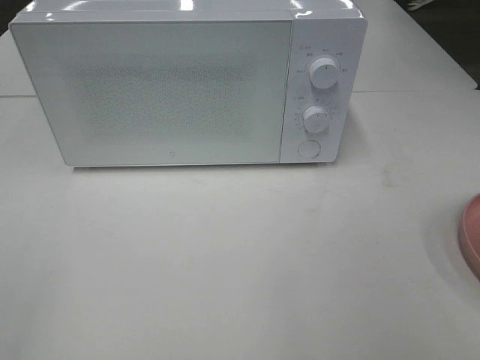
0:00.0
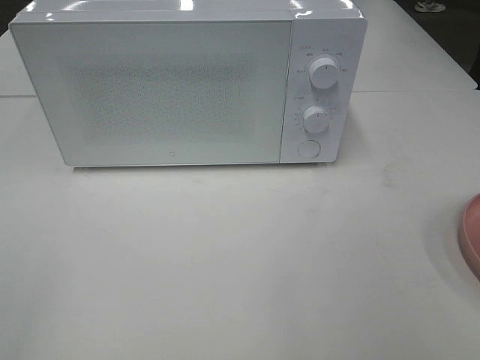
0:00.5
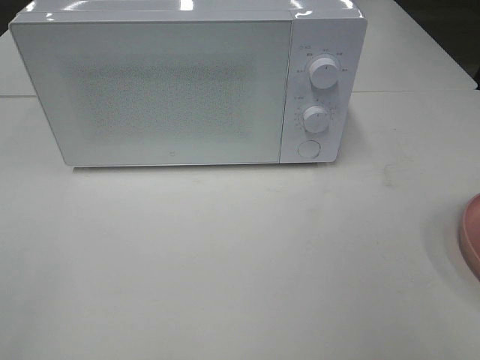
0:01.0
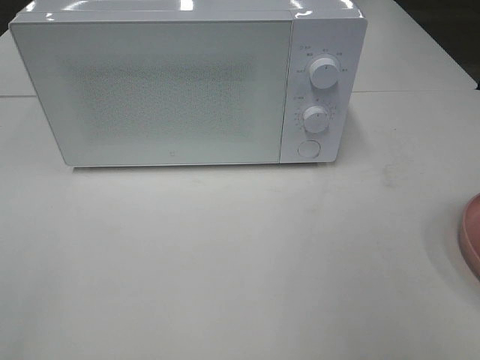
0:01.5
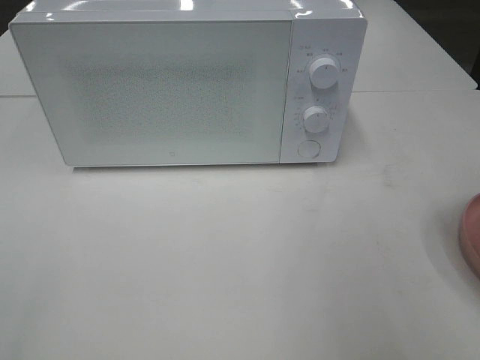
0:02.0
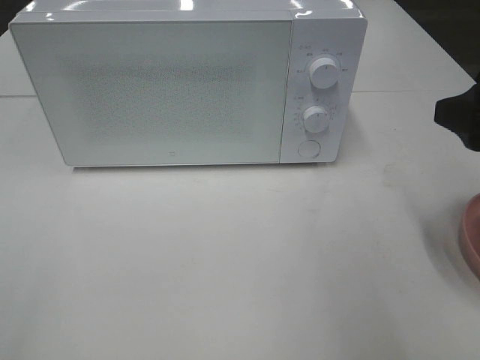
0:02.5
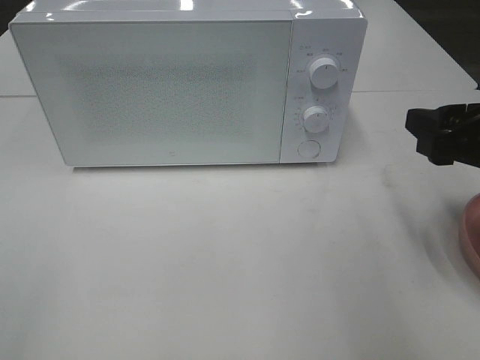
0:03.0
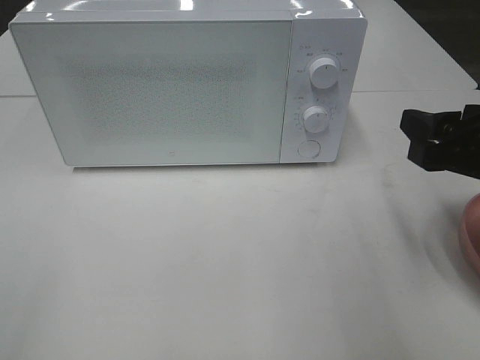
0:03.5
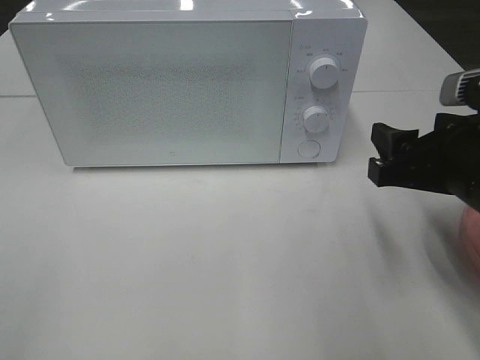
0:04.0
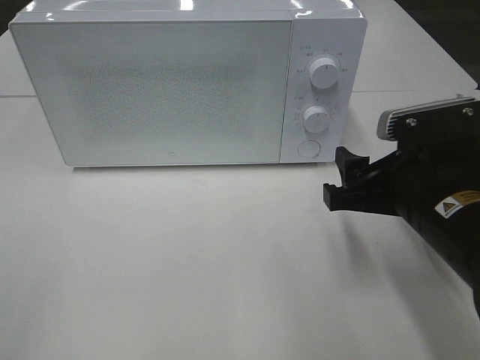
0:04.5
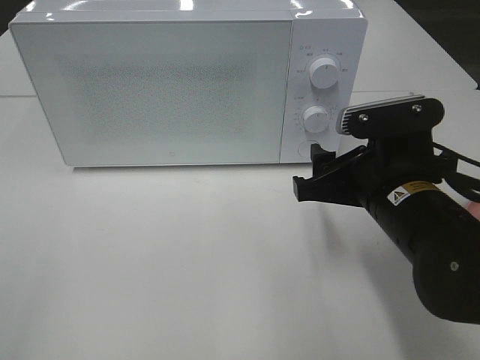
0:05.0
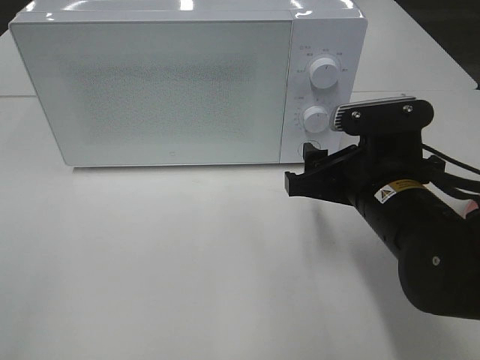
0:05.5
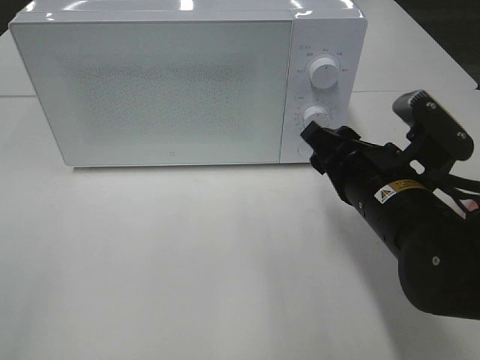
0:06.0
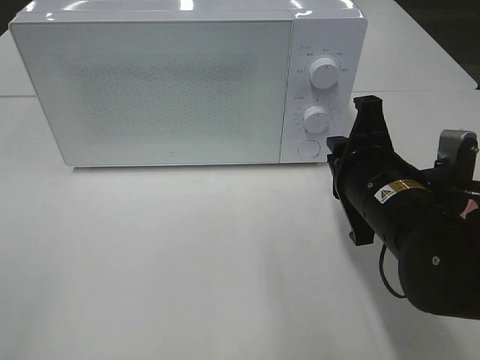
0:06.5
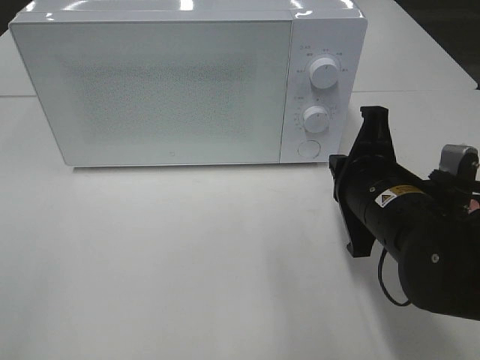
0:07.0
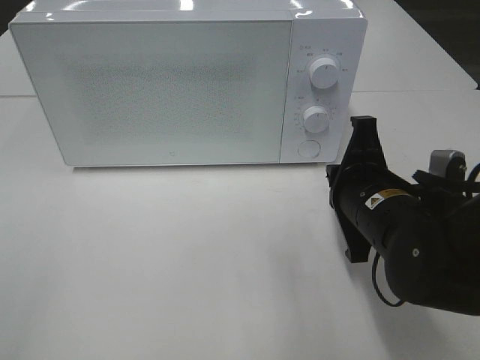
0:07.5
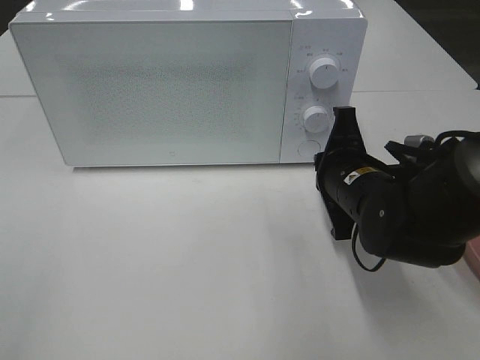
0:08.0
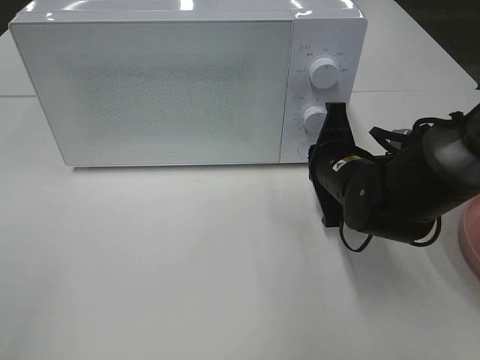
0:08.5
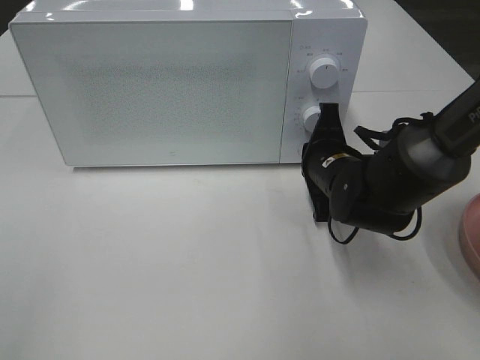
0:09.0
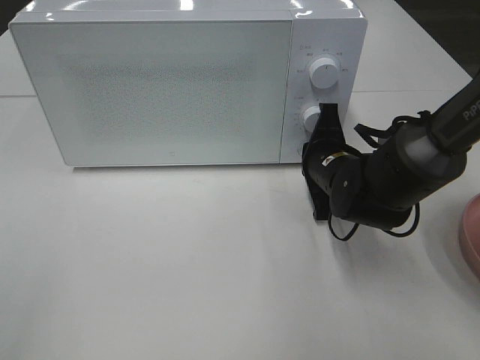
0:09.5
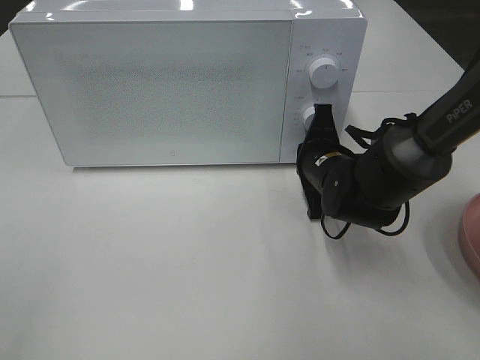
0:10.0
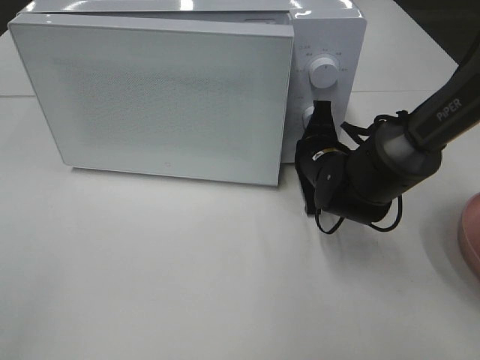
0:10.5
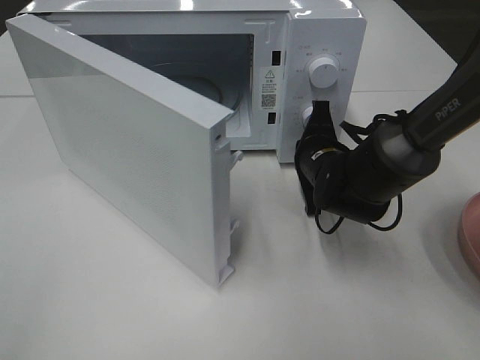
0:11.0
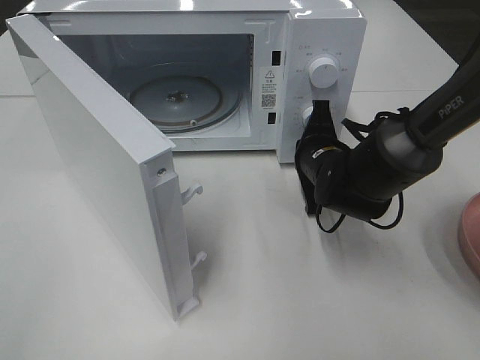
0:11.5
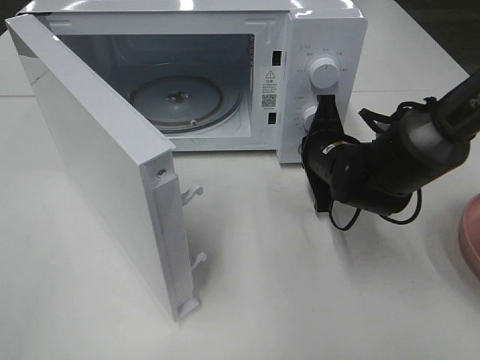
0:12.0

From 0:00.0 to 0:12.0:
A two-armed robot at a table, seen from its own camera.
Task of the whole recording: Heat the burger.
From 0:00.0 to 0:02.0: The right gripper travels forward by about 15 cm.
From 0:02.0 to 0:04.0: The right gripper shifts about 15 cm downward, to the left and forward.
From 0:04.0 to 0:06.0: The right gripper heads to the left, covering some 5 cm.
From 0:06.0 to 0:08.0: The right gripper goes about 5 cm forward, and closes.
From 0:08.0 to 0:10.0: The right gripper heads forward, covering about 5 cm.

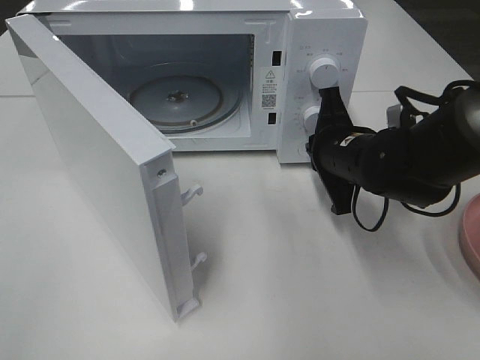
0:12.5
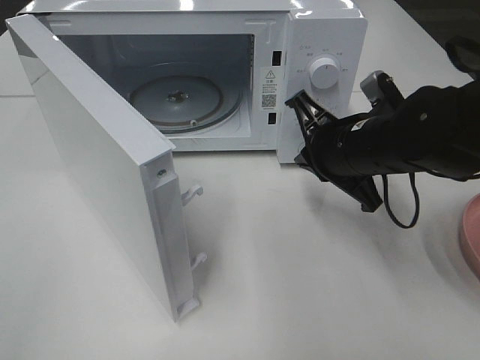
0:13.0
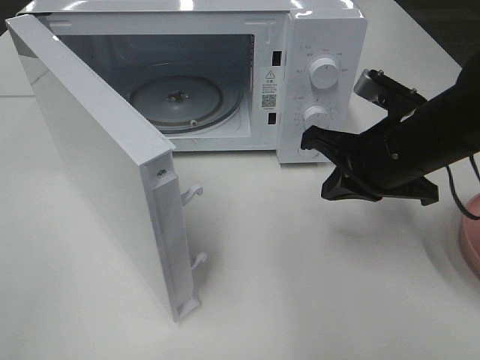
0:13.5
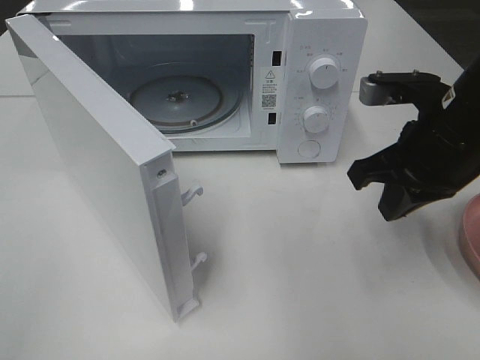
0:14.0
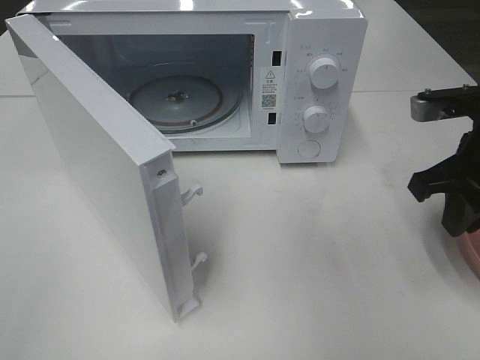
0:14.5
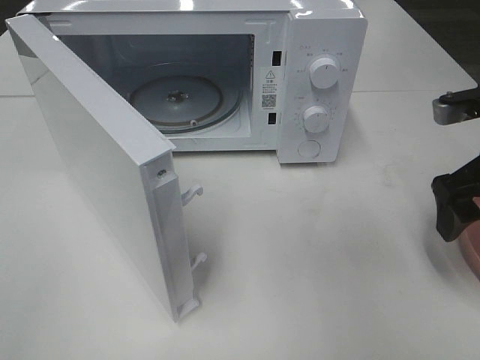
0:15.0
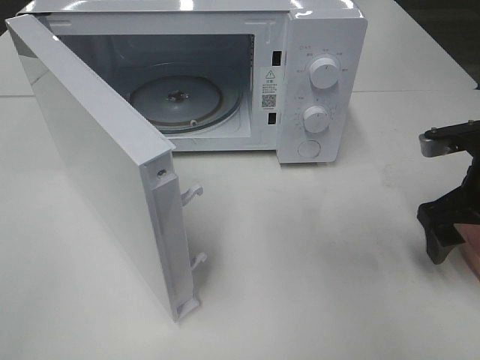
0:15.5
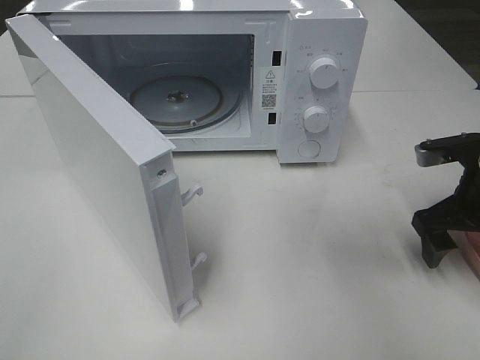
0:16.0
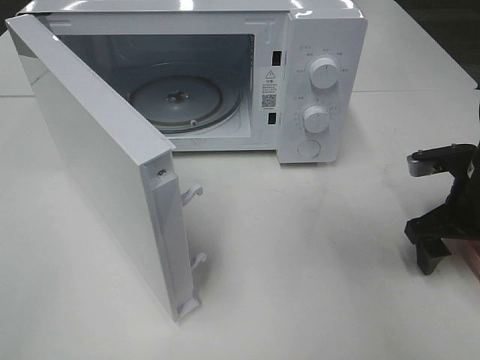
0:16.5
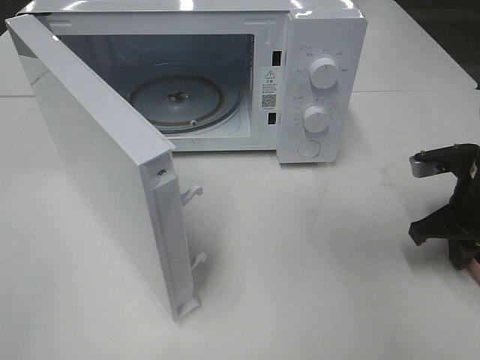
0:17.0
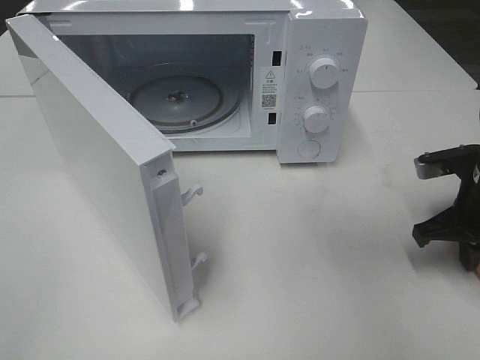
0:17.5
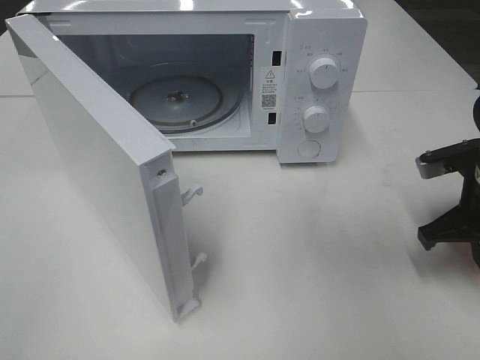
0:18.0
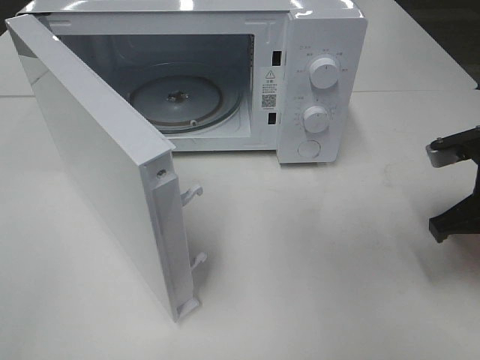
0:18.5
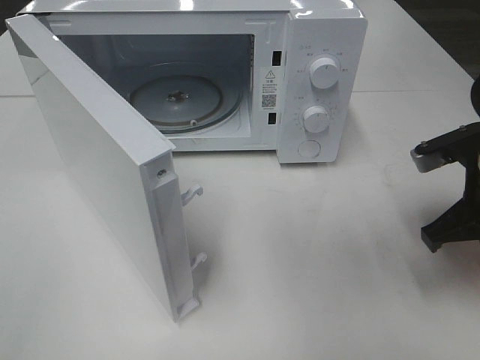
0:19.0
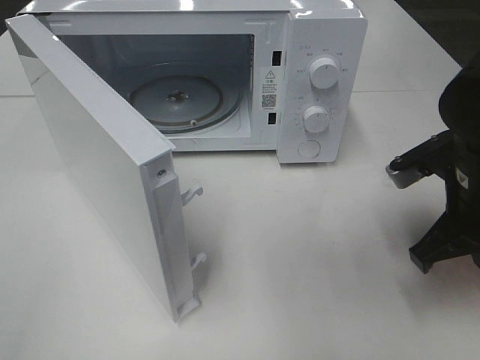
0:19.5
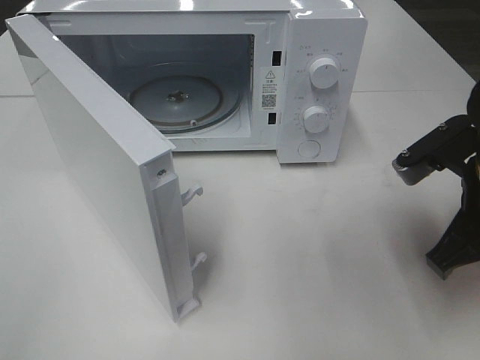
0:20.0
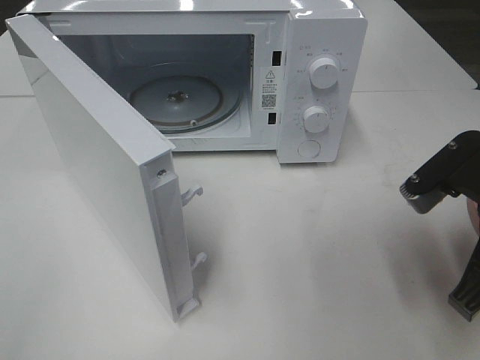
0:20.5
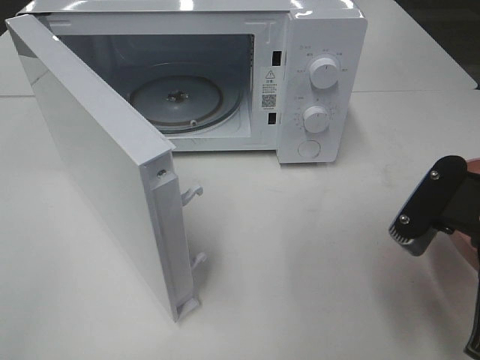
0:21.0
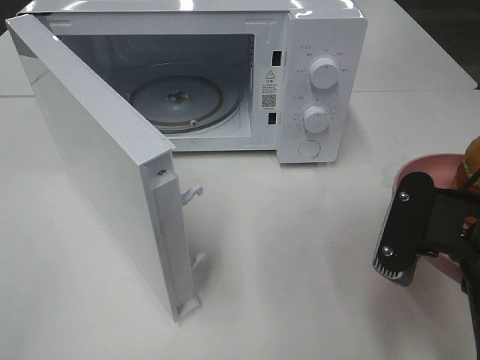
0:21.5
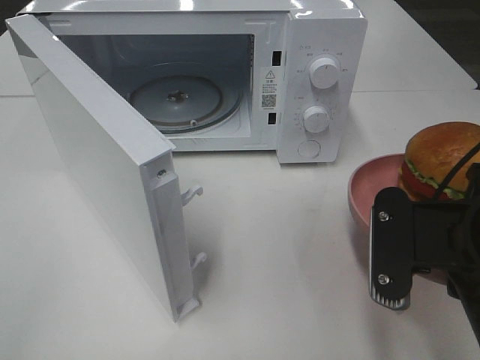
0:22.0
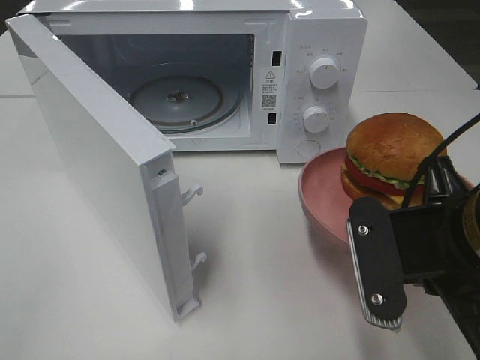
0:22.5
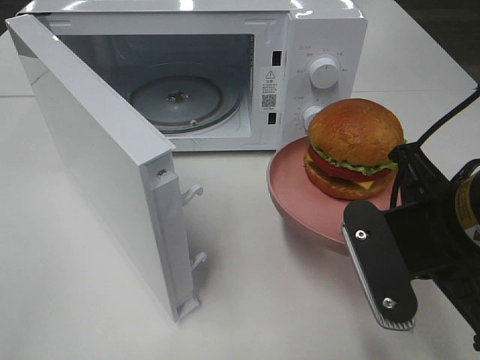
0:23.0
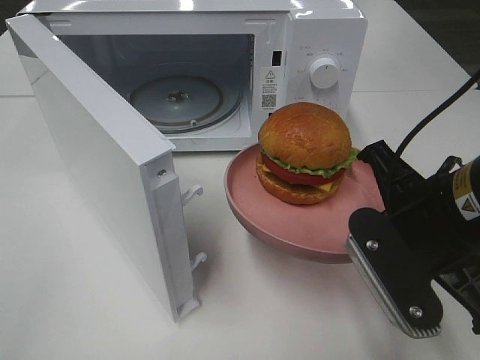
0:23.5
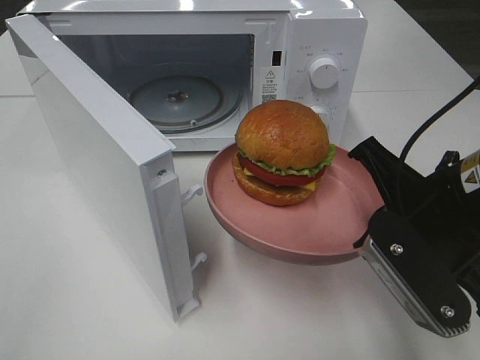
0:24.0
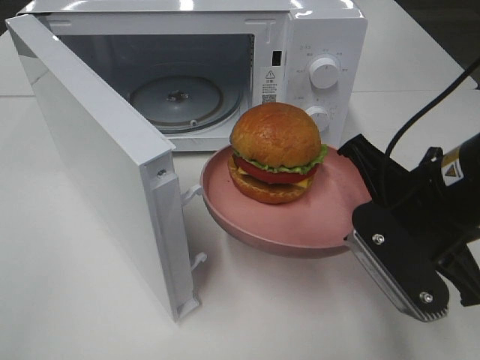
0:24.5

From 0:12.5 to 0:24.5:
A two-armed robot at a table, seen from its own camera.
Task of the whole recording: Heat the burger.
Step, from 0:12.5 to 0:17.0: Right hand: grab the plate with the hamburger.
From 0:12.5 to 0:14.5: The right gripper heads to the right, upward and backward, covering approximately 15 cm.
From 0:14.5 to 0:16.5: The right gripper goes about 10 cm downward, and opens up.
From 0:16.5 to 0:18.5: The right gripper closes its fingers.
From 0:18.5 to 0:20.5: The right gripper shifts some 10 cm backward and to the left.
From 0:20.5 to 0:22.5: The right gripper moves roughly 5 cm.

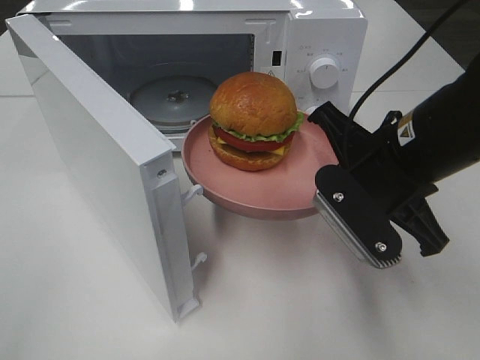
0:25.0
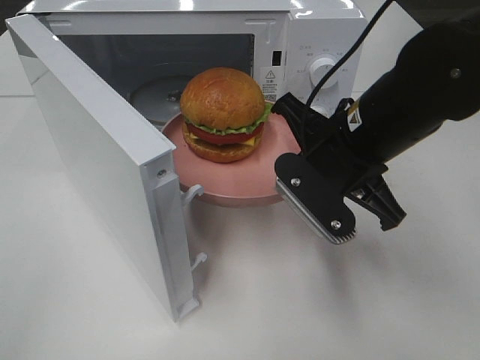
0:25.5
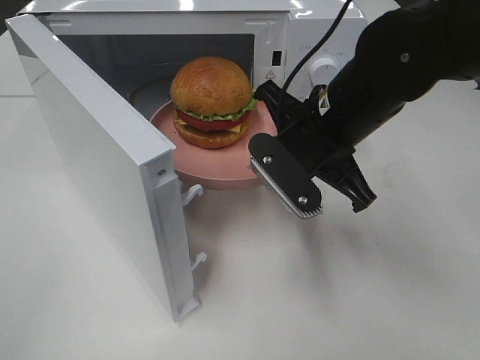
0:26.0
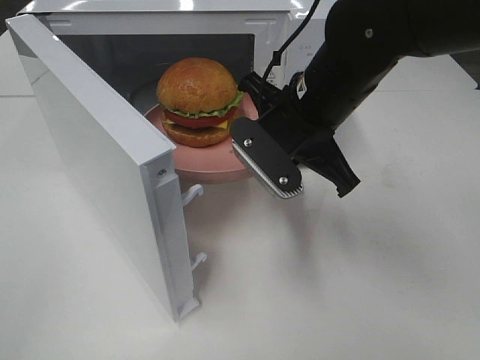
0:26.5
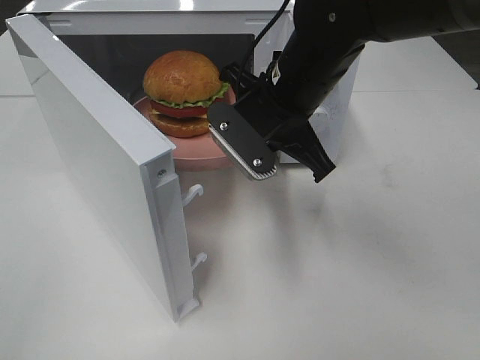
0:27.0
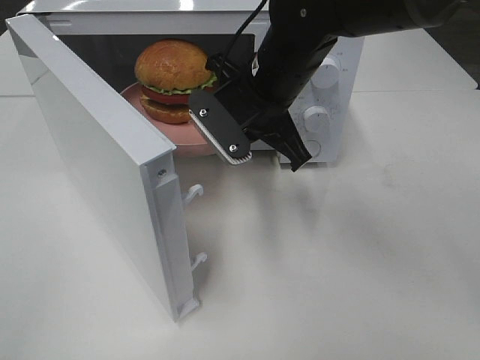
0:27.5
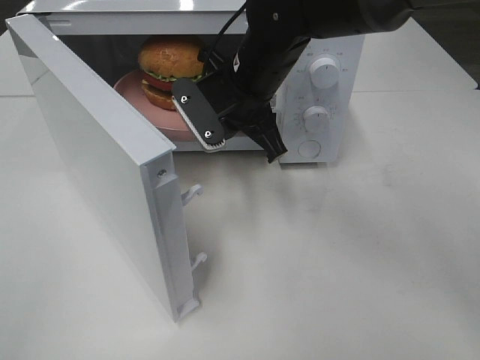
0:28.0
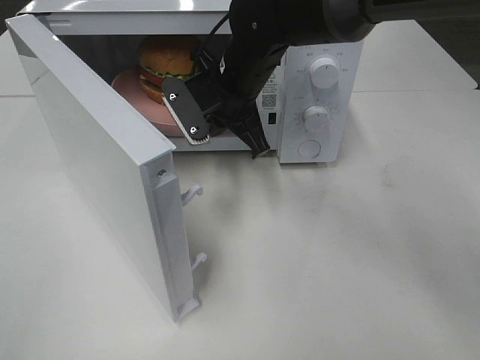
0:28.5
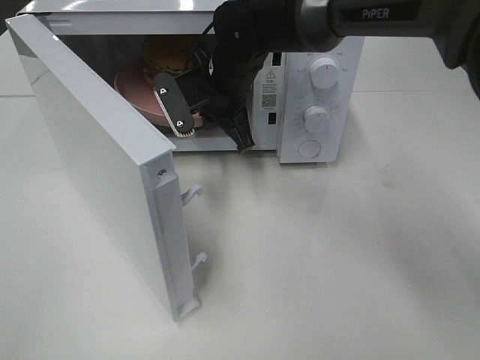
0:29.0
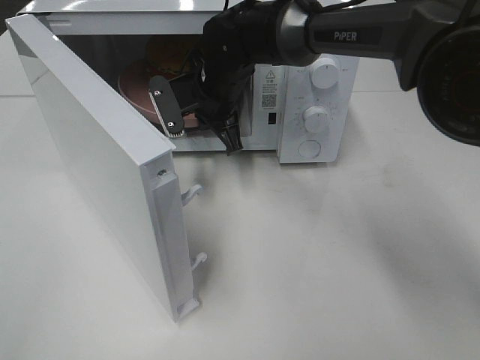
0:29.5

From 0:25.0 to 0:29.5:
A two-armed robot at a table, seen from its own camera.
Task of the whole recording: Heat the burger.
From 0:25.0 to 0:27.0: The right gripper shifts some 15 cm forward and to the left.
From 0:27.0 to 0:29.5: The right gripper shifts roughly 15 cm forward, to the left and downward.
